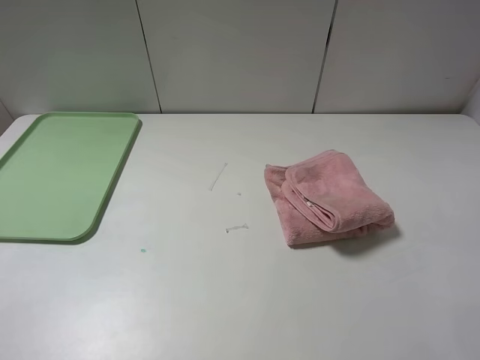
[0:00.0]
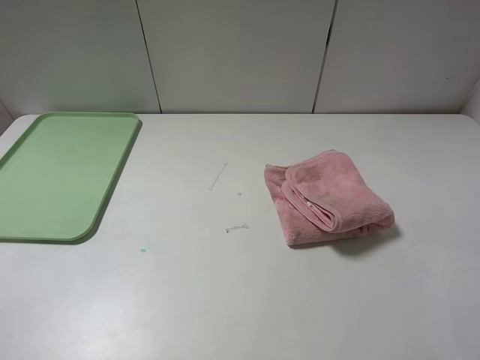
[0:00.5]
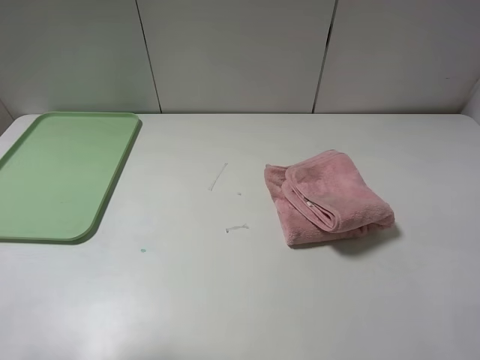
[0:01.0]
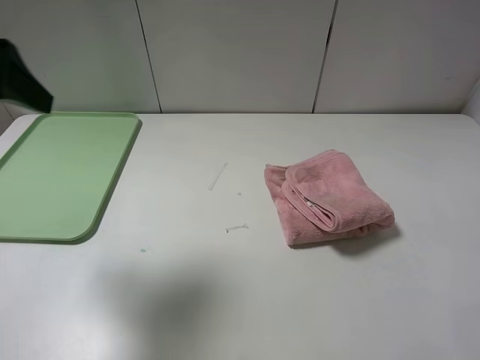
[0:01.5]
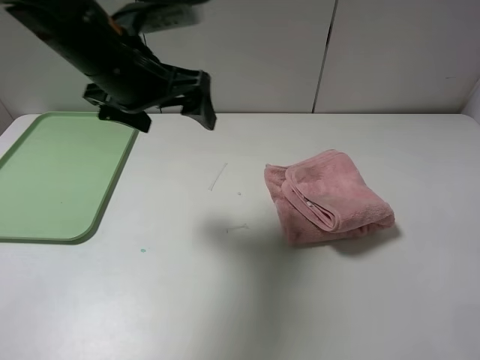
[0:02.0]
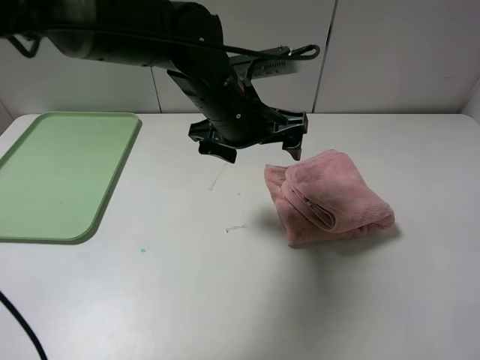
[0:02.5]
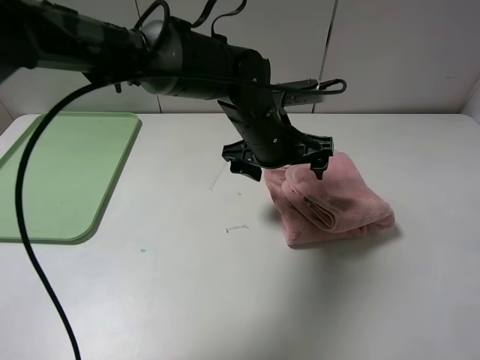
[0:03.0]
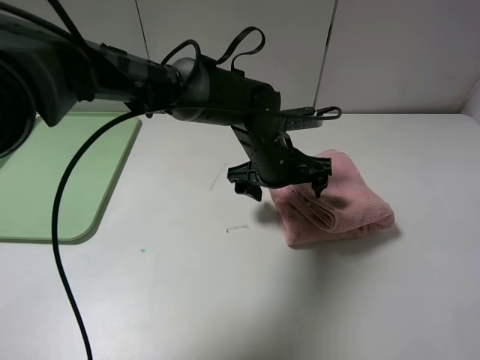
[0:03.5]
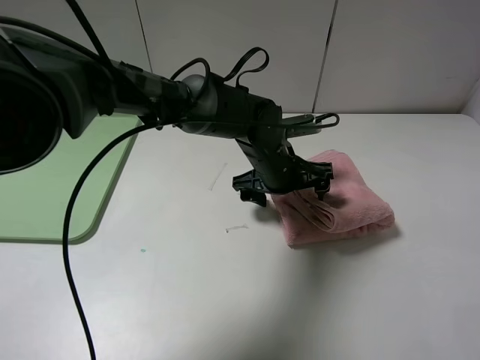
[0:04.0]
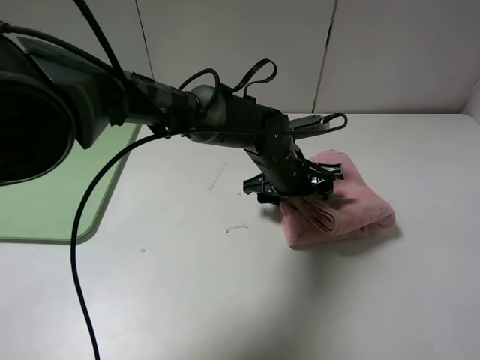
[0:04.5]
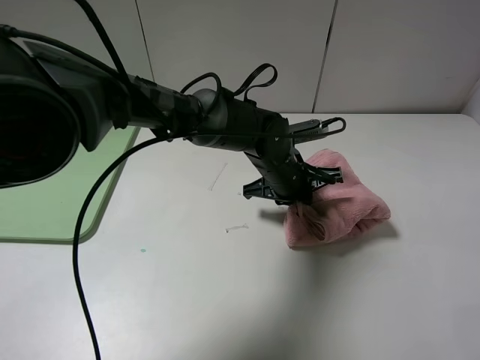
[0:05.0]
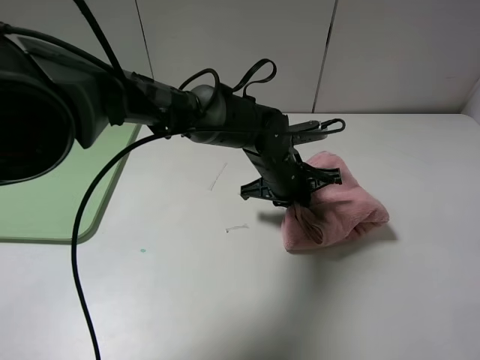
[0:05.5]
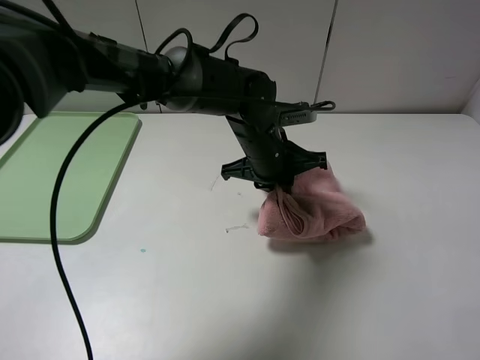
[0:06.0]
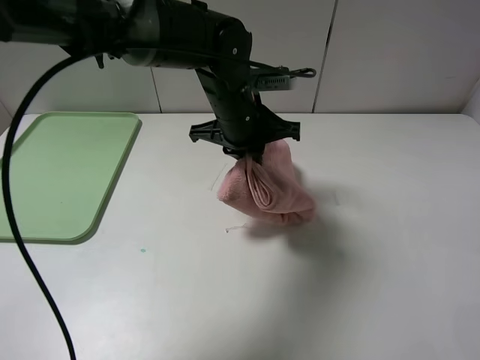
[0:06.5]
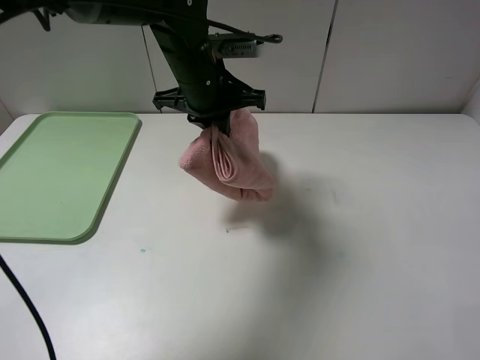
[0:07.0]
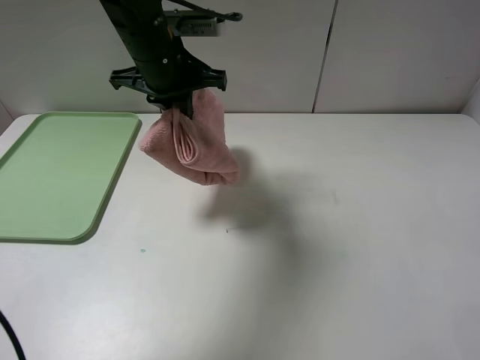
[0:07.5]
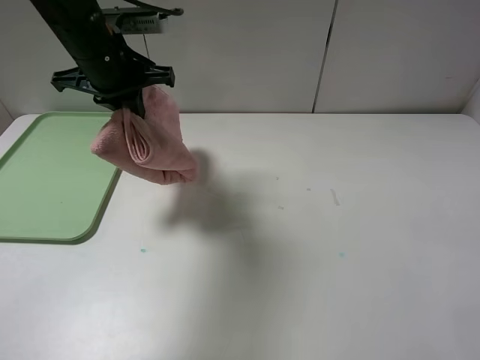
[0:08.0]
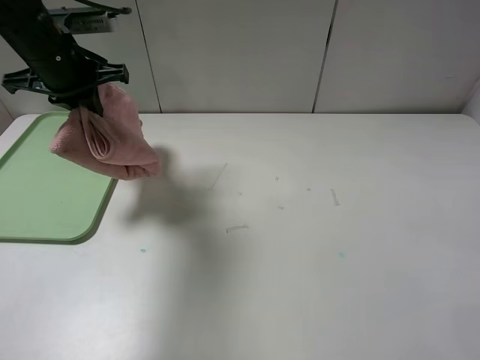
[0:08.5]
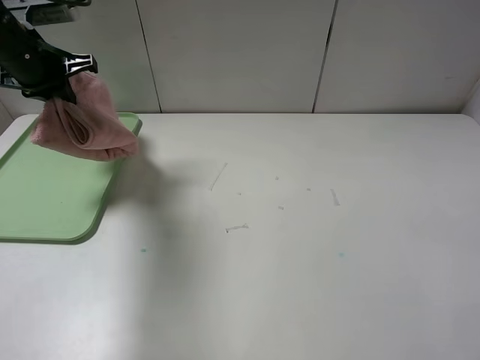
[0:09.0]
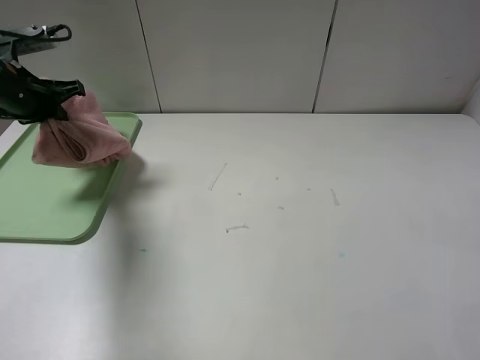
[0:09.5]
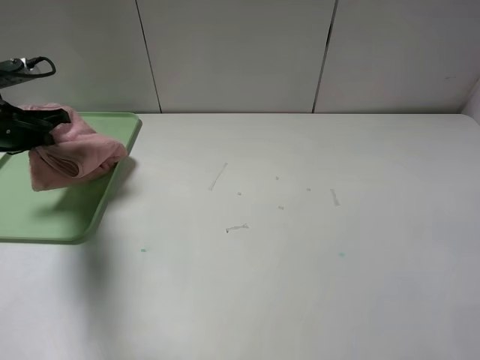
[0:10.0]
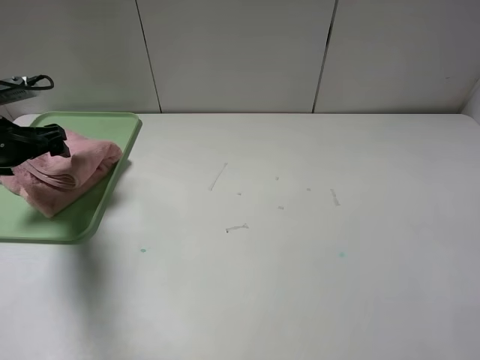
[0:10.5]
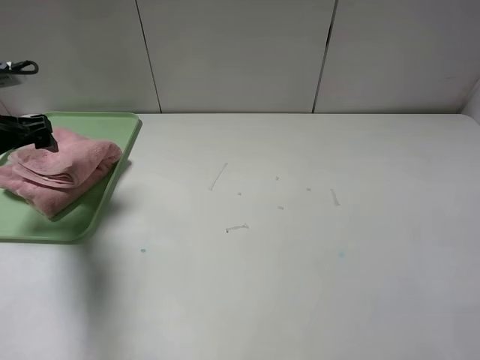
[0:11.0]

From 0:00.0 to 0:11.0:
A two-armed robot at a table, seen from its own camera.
Step, from 0:00.0 to 0:10.5: Place the folded pink towel on the tray with the left gripper.
From 0:00.0 to 0:02.0: The left gripper shifts some 35 cm forward and to the right.
From 0:02.0 to 0:03.5: The left gripper is displaced to the right and downward by about 20 cm.
From 0:03.5 to 0:05.5: The left gripper closes up.
From 0:05.5 to 0:07.5: The left gripper heads to the left and upward, covering about 25 cm.
From 0:07.5 to 0:09.0: The left gripper is displaced to the left by some 20 cm.
From 0:09.0 to 0:11.0: The left gripper travels backward, downward and to the left by roughly 10 cm, and opens.

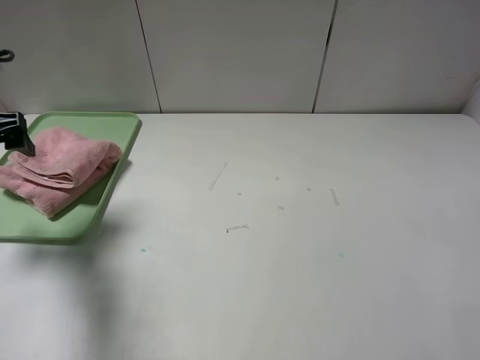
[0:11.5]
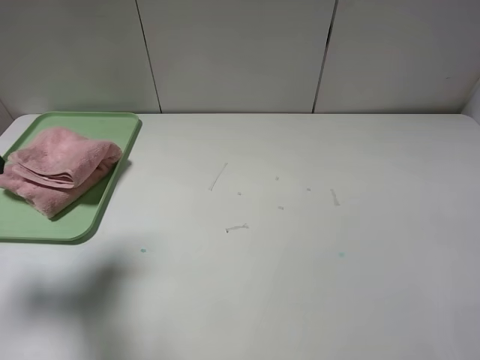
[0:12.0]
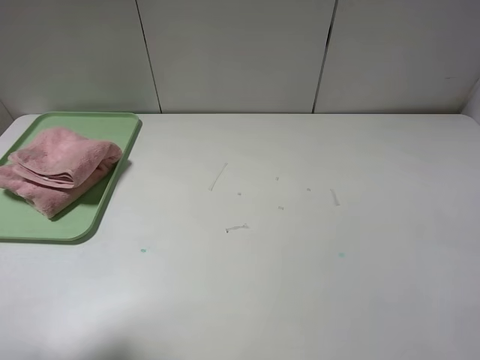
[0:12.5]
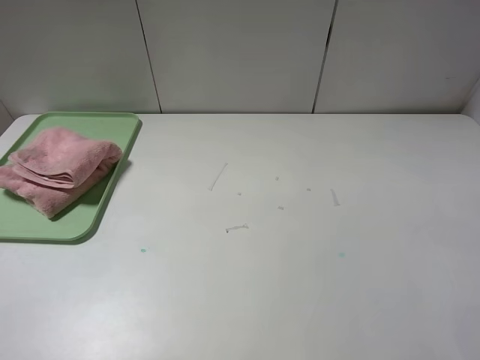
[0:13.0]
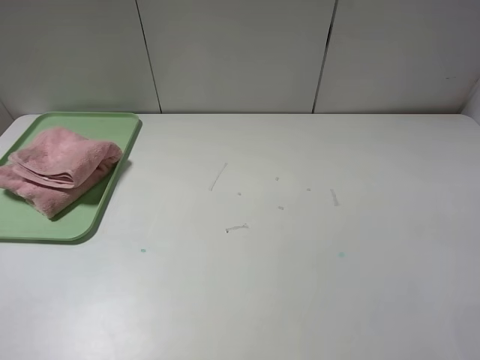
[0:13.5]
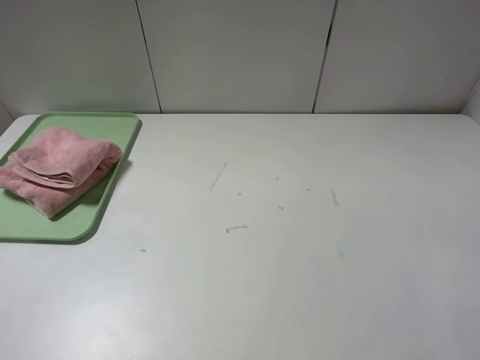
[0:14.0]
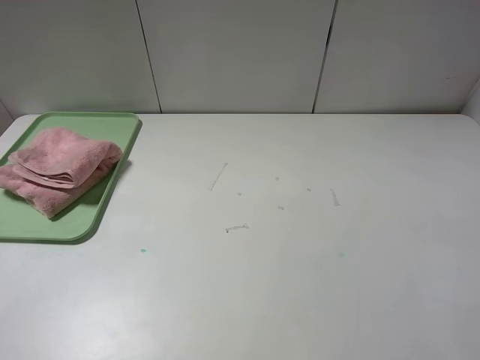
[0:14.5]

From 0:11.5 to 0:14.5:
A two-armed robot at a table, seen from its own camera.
From 0:11.5 to 0:13.0: The left gripper moves backward and upward, about 25 cm.
